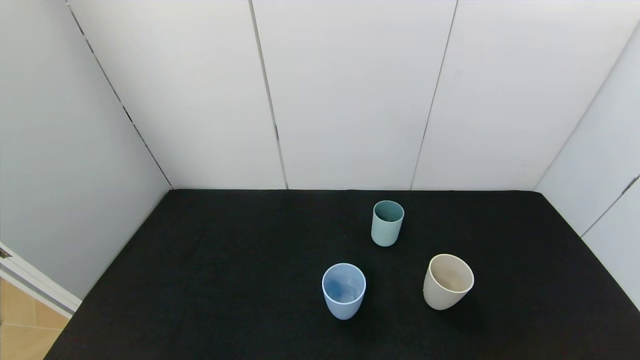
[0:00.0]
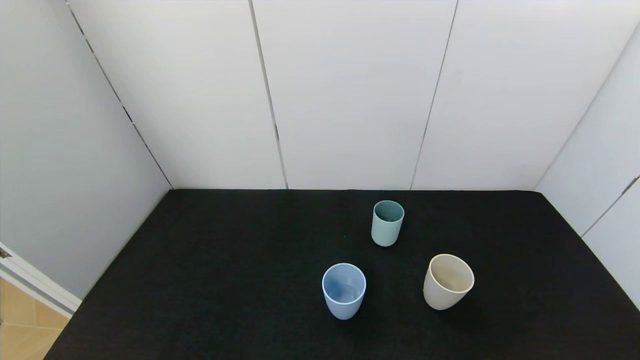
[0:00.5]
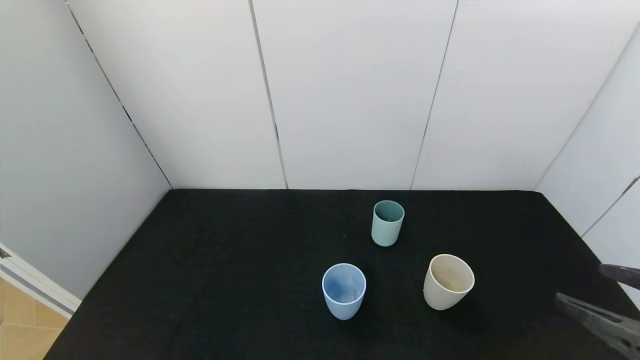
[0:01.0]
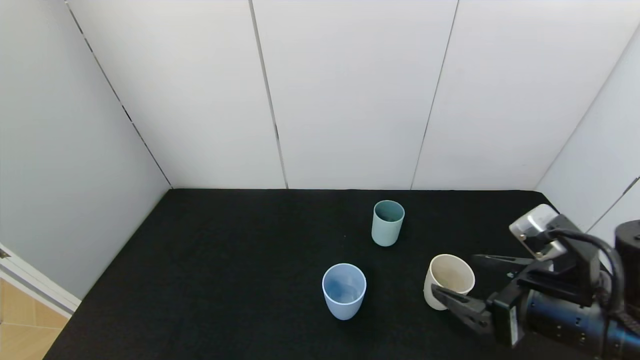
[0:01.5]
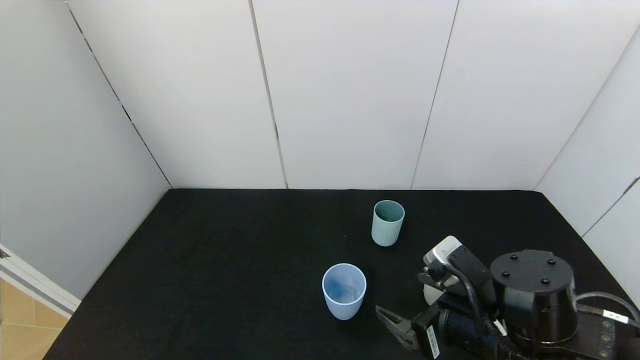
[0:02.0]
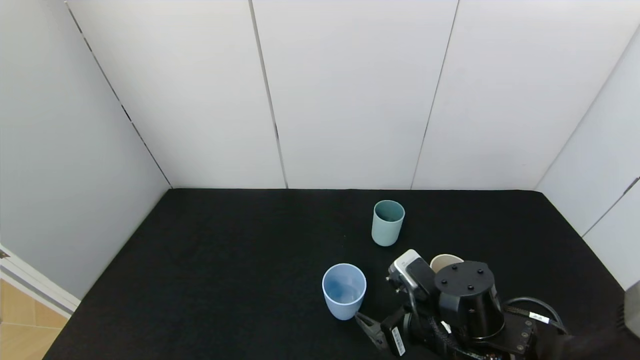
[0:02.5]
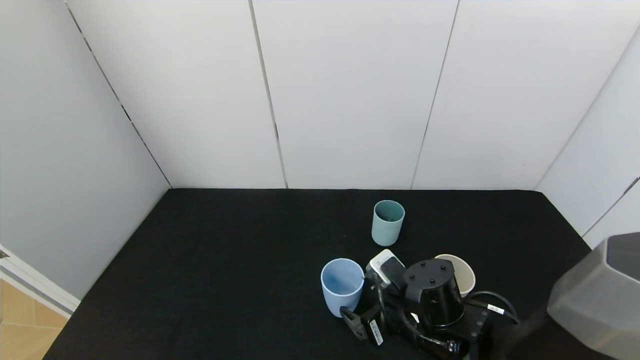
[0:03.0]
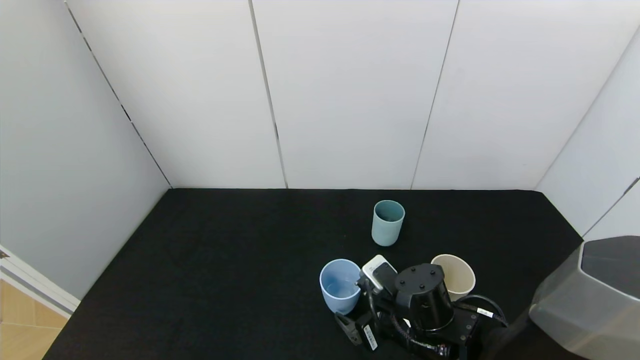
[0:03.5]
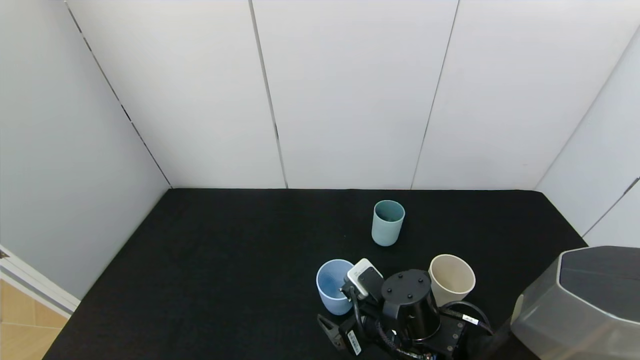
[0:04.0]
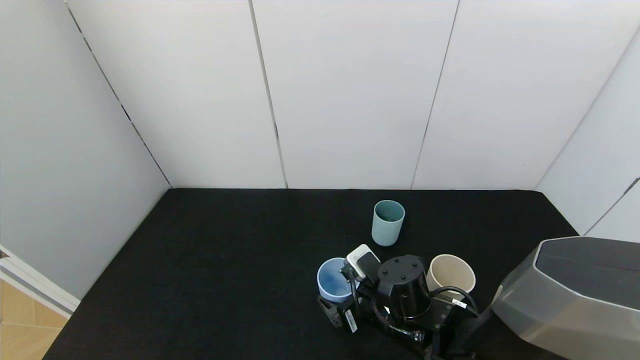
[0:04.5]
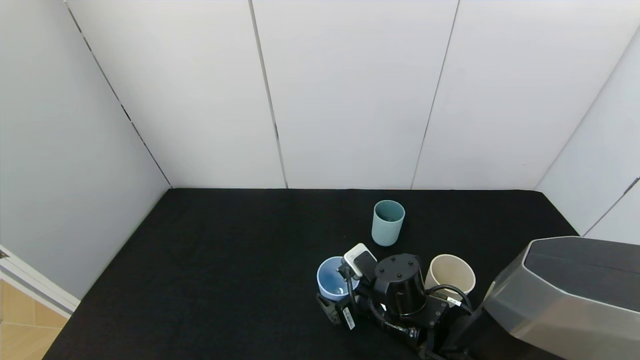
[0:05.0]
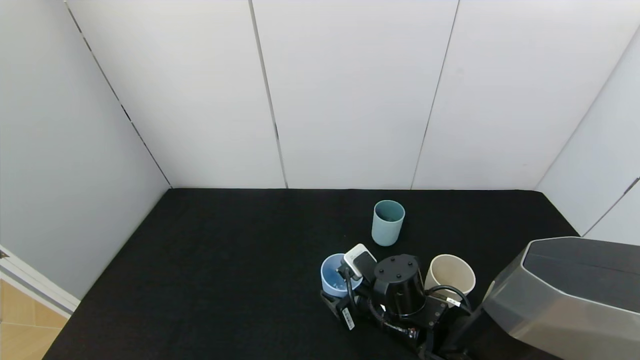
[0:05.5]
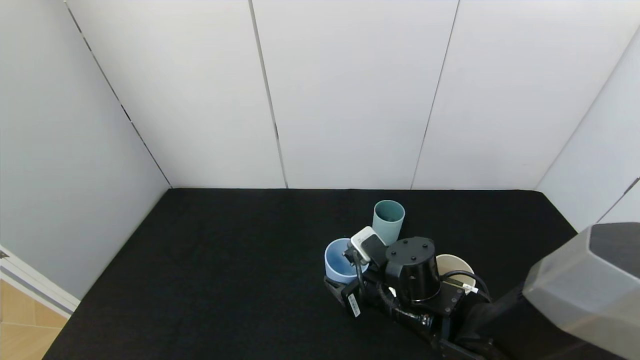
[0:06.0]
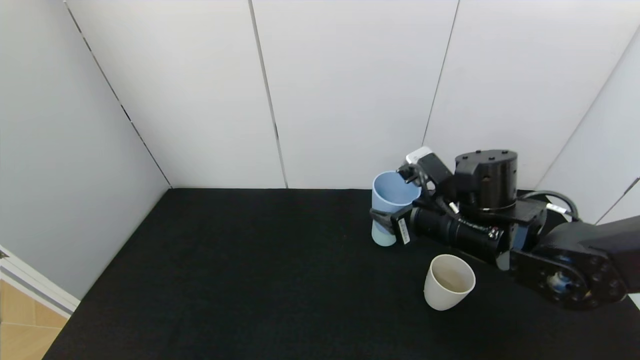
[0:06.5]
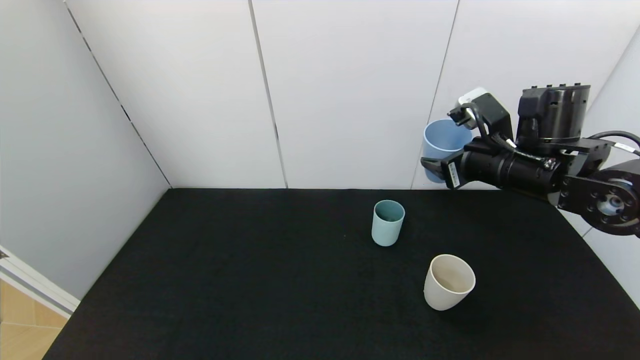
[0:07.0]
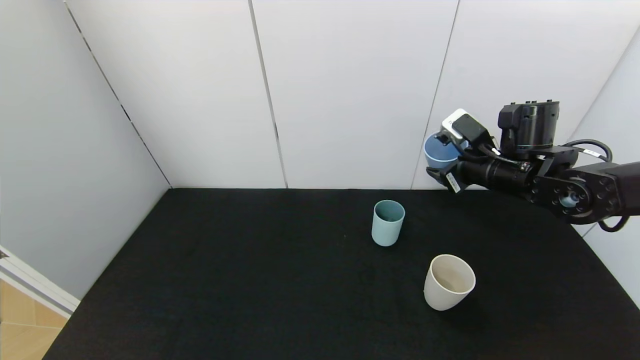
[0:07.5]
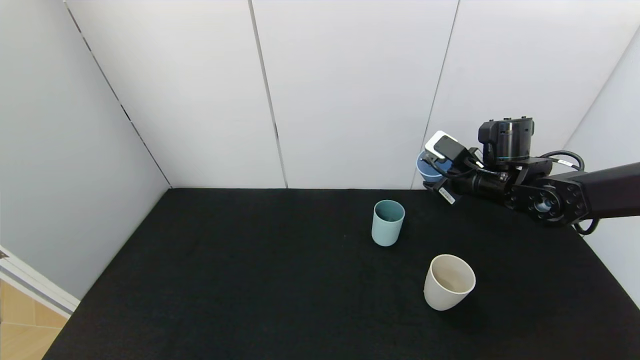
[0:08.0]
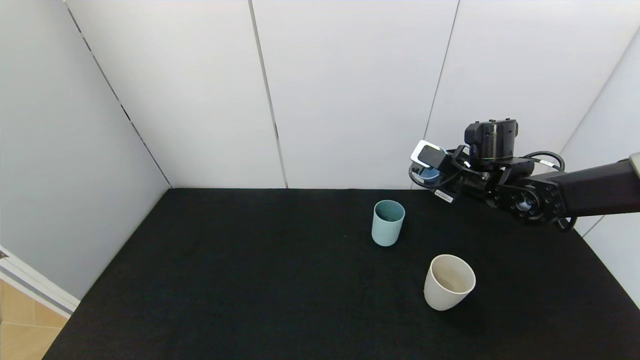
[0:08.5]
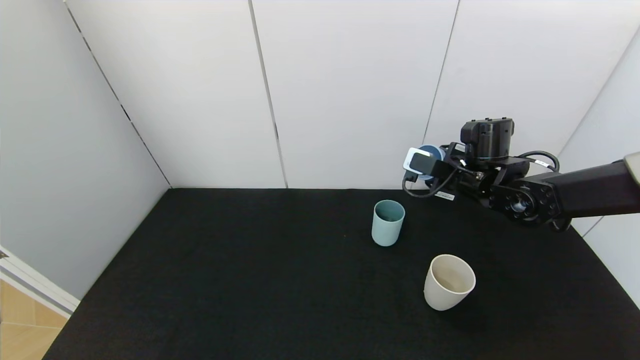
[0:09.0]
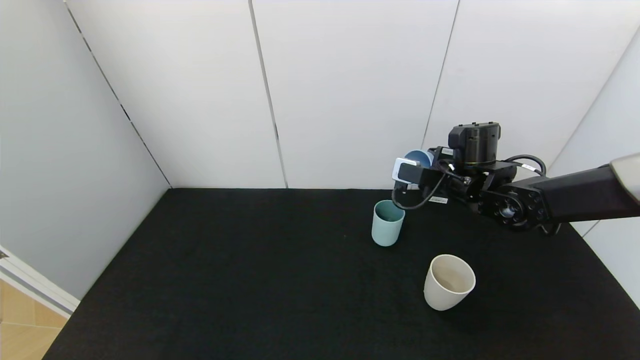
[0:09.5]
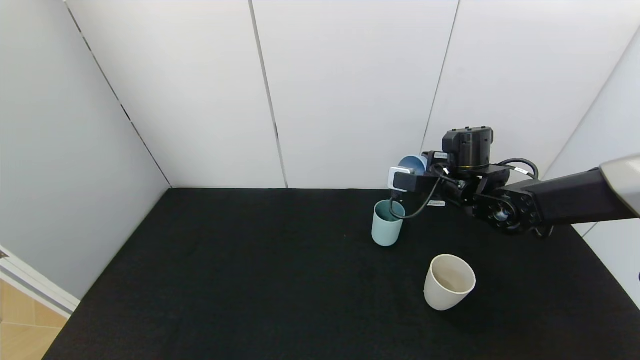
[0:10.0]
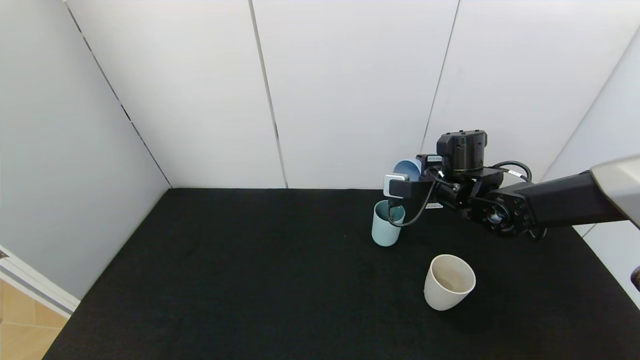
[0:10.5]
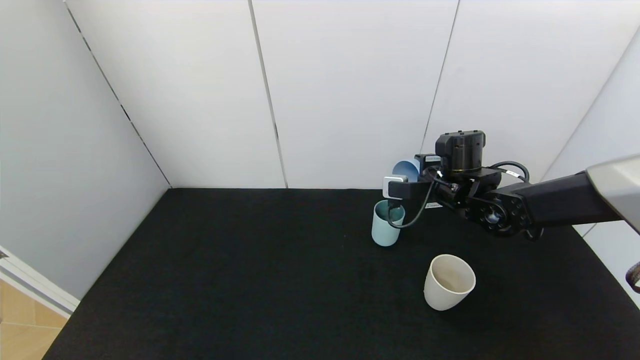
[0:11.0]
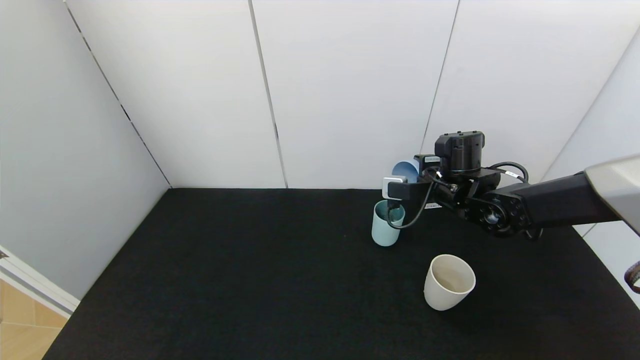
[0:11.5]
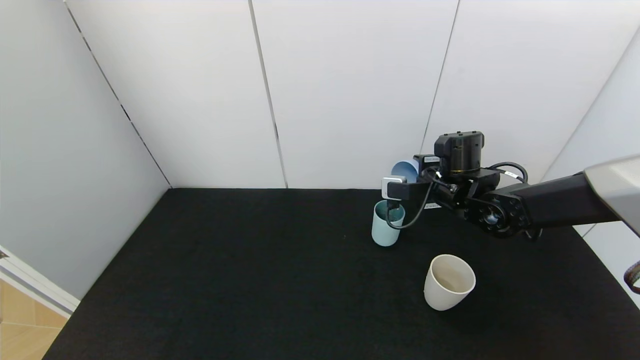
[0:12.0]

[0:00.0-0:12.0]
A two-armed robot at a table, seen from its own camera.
Task of the whole recording: use the gripper to pour the water into the other two cups on black table.
Step, 0:00.0 to 0:05.0: Grasp the blue cup with the right gripper.
0:00.0 to 0:02.0: The right gripper travels to the left, forward and downward by some 20 cm.
0:02.0 to 0:04.0: The right gripper moves to the left and downward, approximately 10 cm.
0:04.0 to 0:06.0: The right gripper closes up.
0:06.0 to 0:08.0: The right gripper shifts about 20 cm to the right, forward and upward.
0:10.0 to 0:12.0: The grippers move only a little.

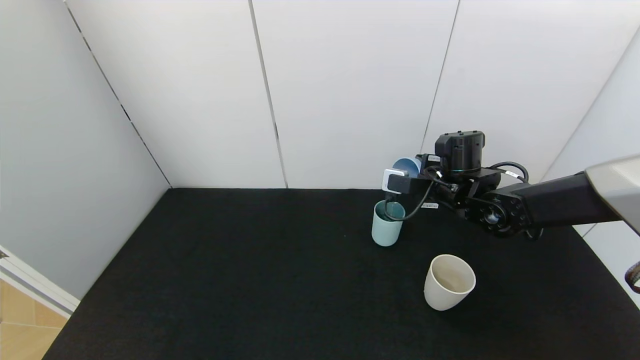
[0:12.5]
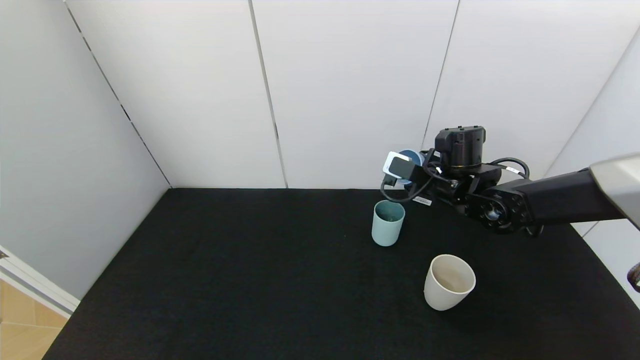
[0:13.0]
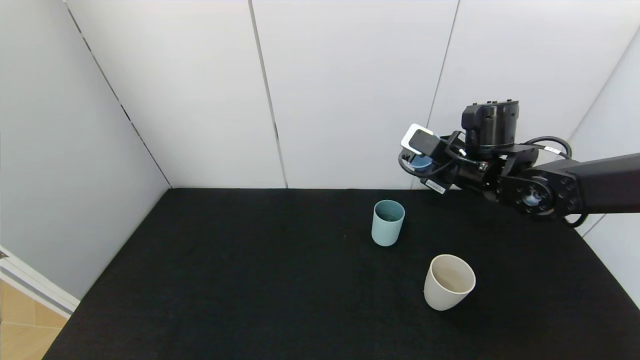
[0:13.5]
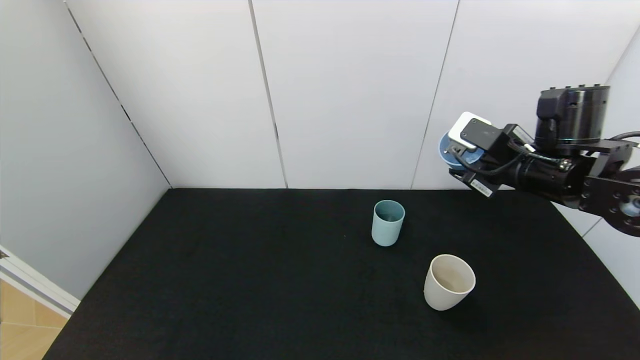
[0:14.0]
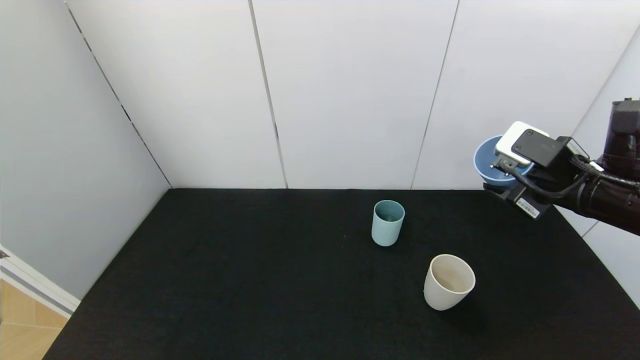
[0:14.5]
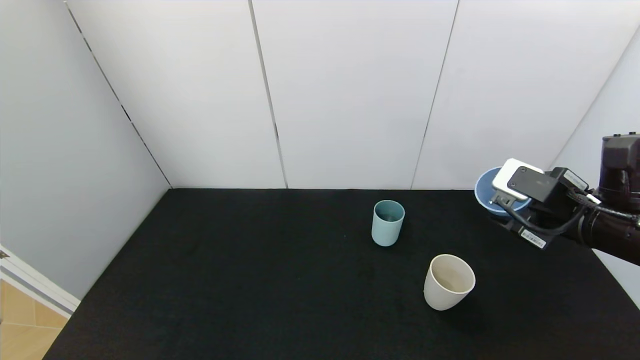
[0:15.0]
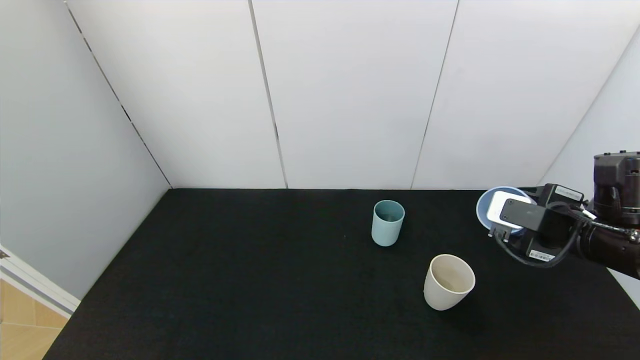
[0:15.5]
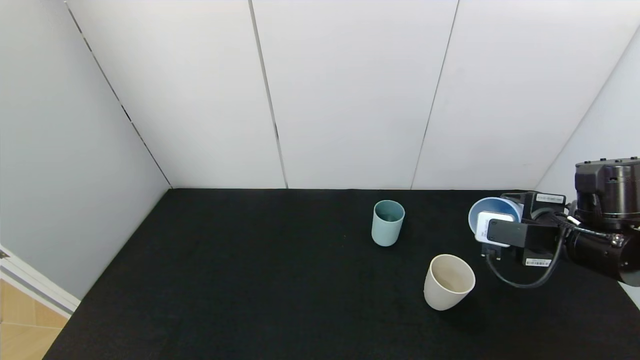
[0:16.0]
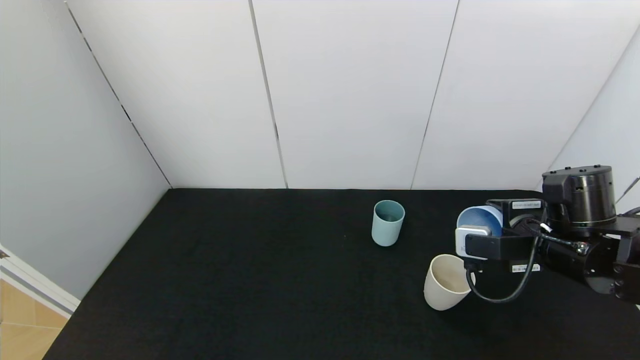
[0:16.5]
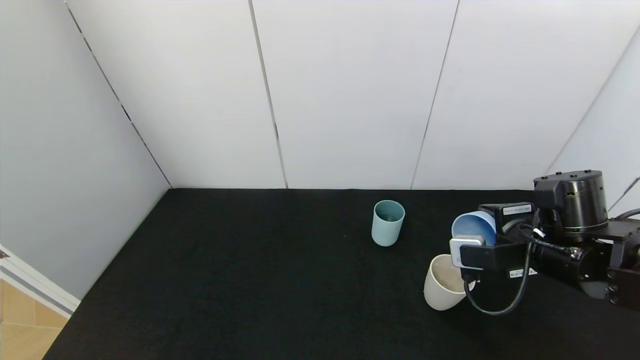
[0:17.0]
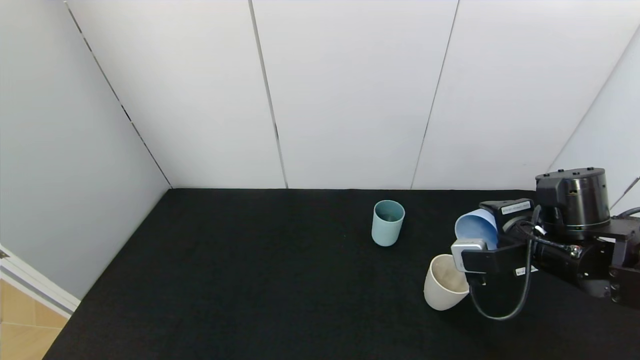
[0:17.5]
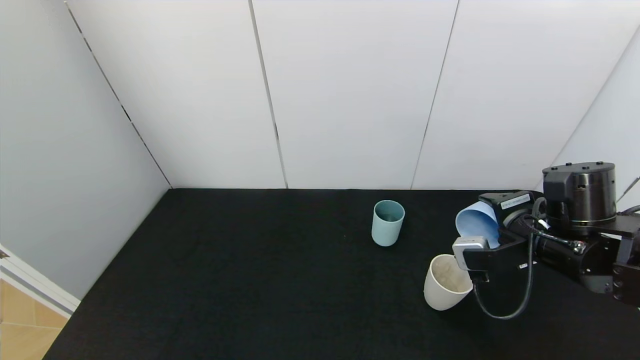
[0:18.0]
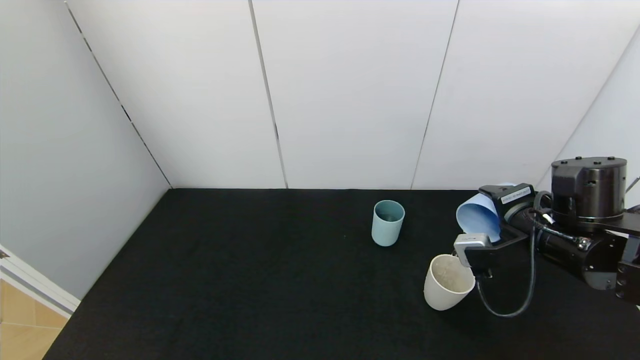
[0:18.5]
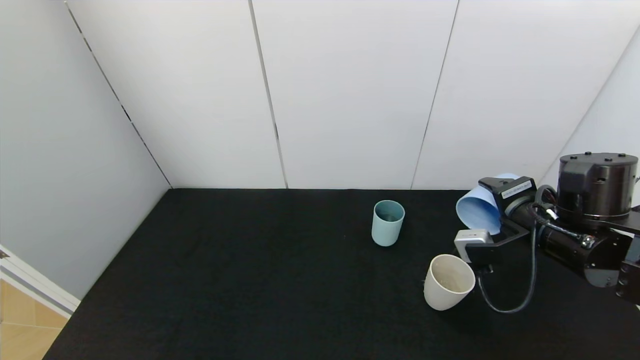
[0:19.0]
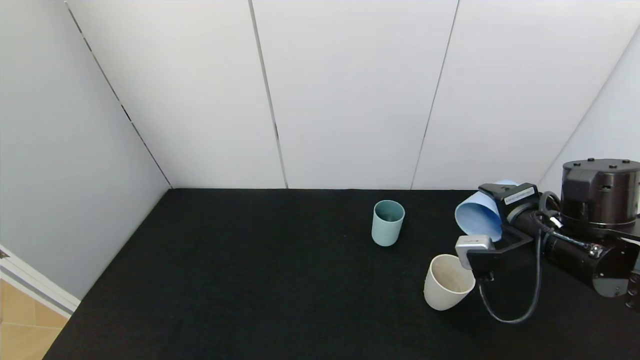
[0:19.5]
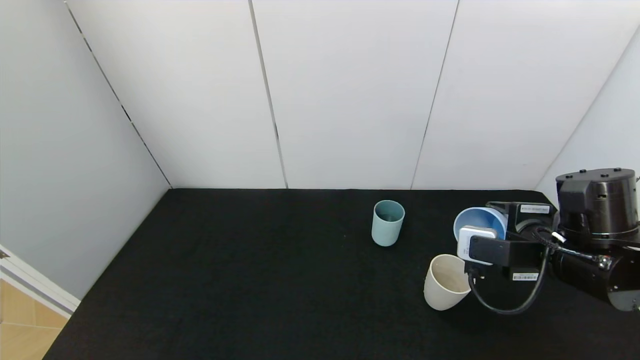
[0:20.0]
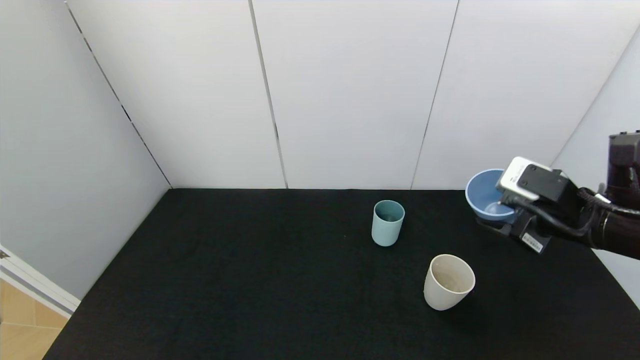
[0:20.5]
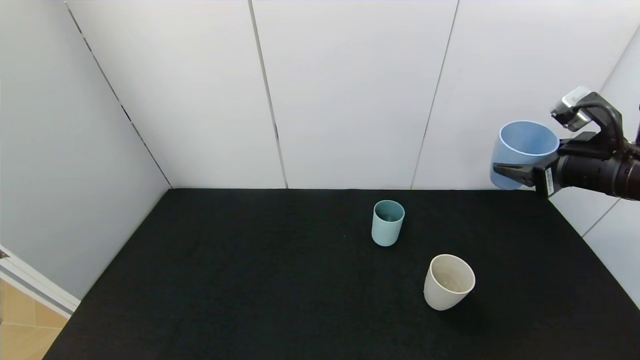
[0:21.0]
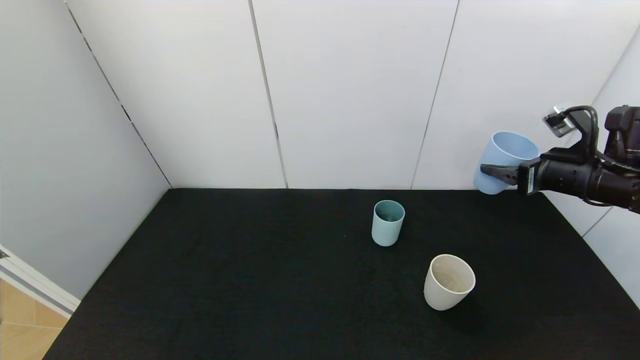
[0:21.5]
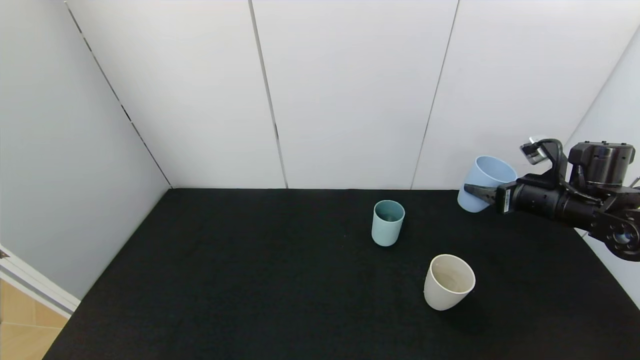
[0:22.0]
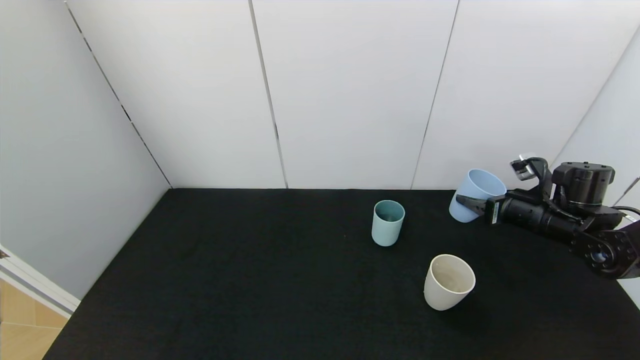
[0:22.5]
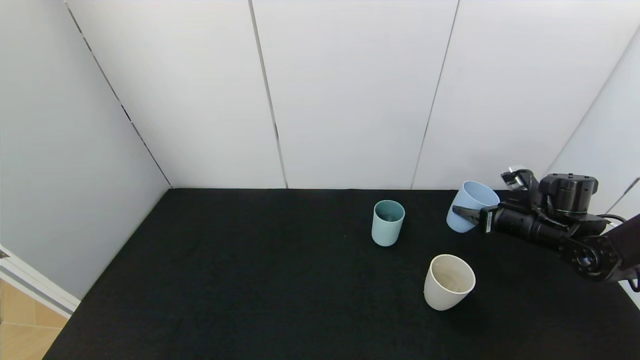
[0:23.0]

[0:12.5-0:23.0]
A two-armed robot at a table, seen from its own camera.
Task of the whole recording: use the gripper to pour the water into the other two cups on black table.
Step, 0:13.5 to 0:20.0: Pour water from blue cup to white cup with the right gripper.
0:12.5 to 0:14.5: The right gripper is displaced backward, to the right and upward by some 20 cm.
0:14.5 to 0:16.5: The right gripper shifts about 5 cm downward.
0:19.0 to 0:21.0: The right gripper goes approximately 10 cm to the right and upward.
0:21.0 to 0:23.0: The right gripper heads downward and forward, covering about 15 cm.
